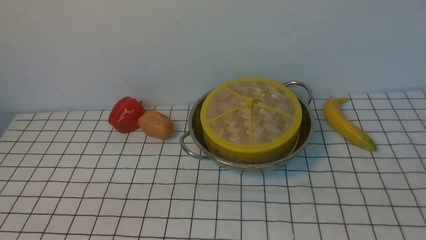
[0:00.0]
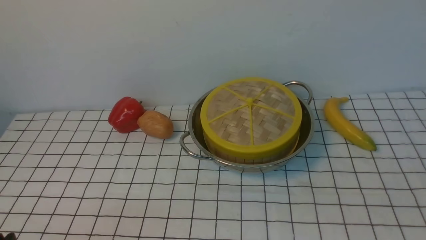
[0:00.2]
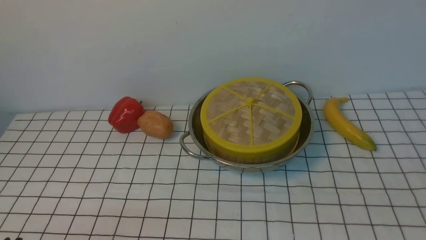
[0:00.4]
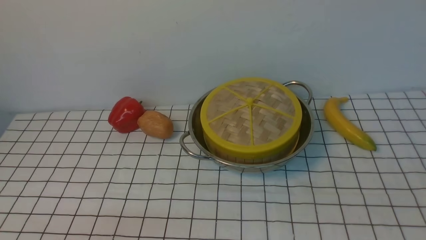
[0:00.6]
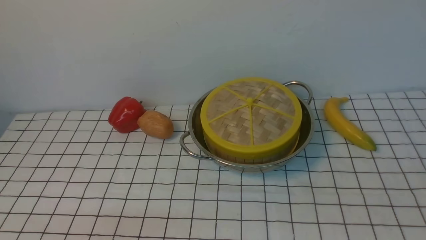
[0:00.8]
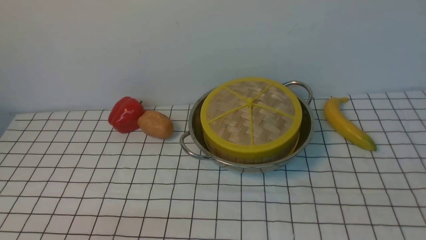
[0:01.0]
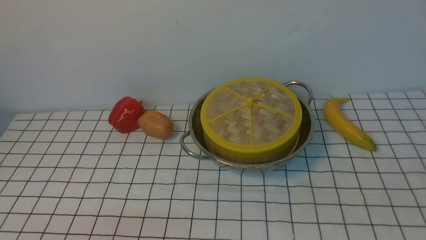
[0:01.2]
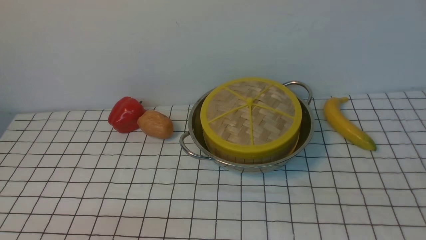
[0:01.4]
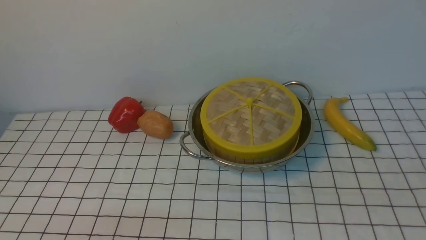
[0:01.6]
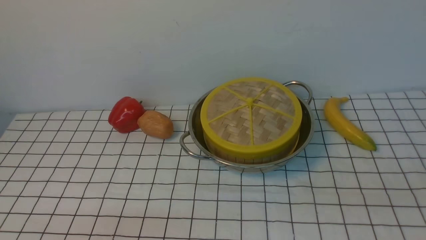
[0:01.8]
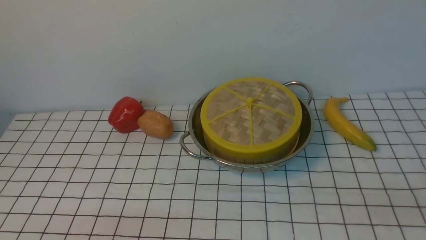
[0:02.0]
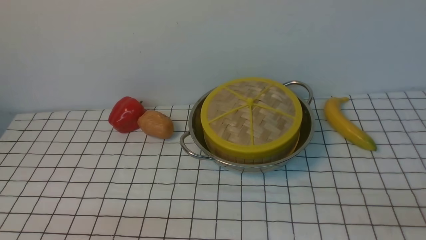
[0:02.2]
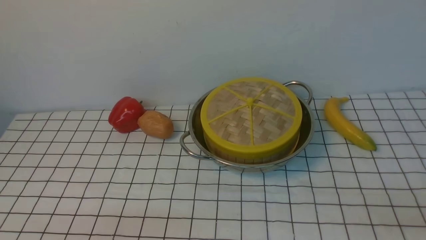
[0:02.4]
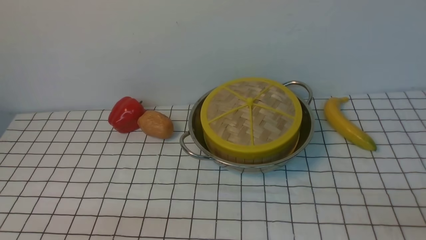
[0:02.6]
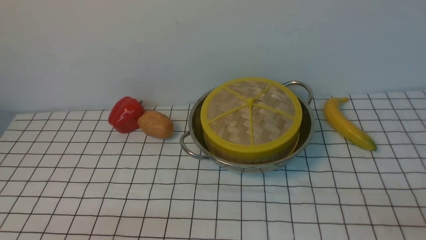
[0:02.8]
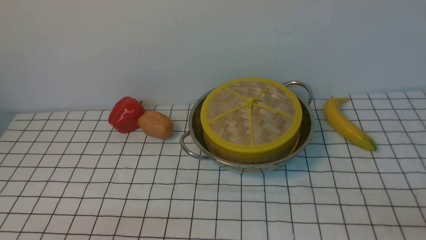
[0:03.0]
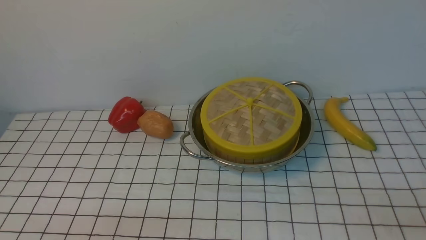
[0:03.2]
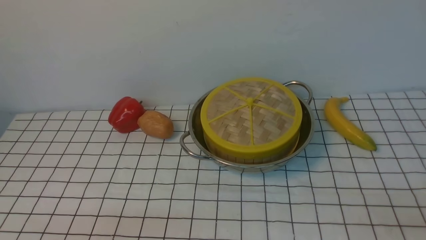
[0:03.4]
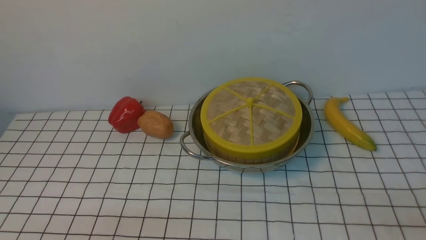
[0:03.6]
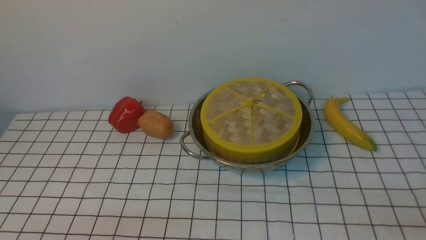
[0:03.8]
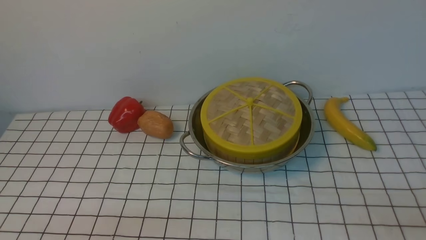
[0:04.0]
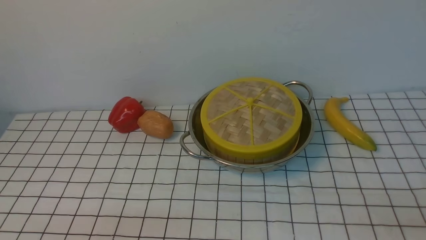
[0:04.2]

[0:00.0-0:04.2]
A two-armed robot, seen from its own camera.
Task of the whole recording: place the steamer in the pot on the white tablecloth, and put the lid on the steamer.
0:02.8 to 0:04.2: Both grippers stay put.

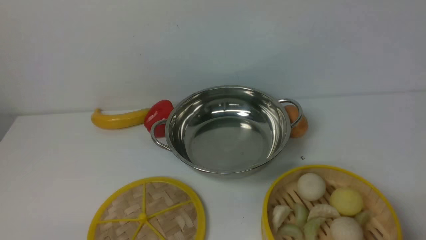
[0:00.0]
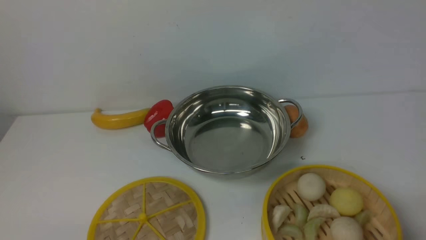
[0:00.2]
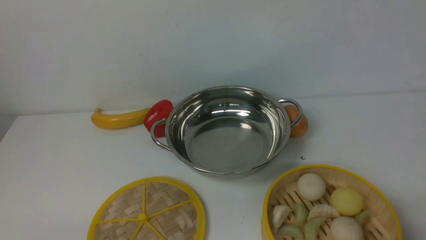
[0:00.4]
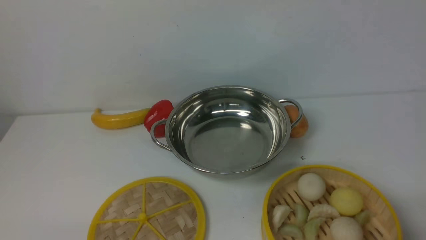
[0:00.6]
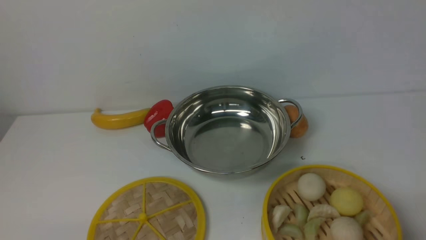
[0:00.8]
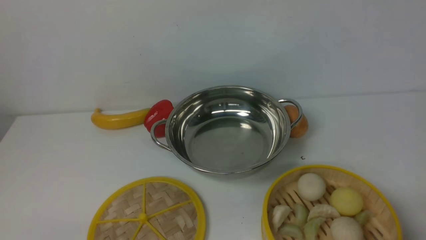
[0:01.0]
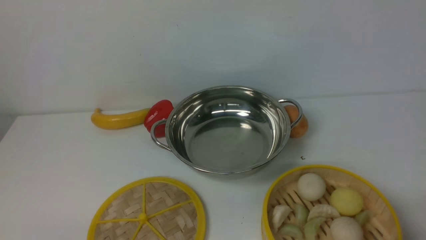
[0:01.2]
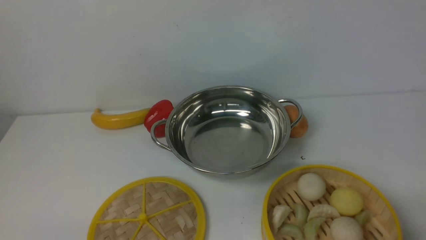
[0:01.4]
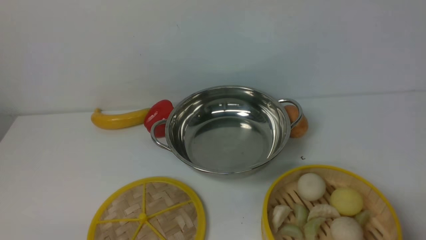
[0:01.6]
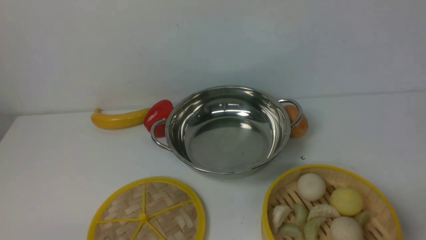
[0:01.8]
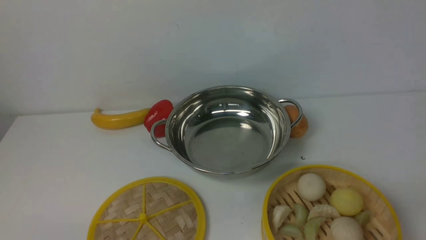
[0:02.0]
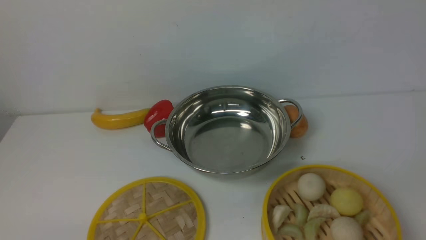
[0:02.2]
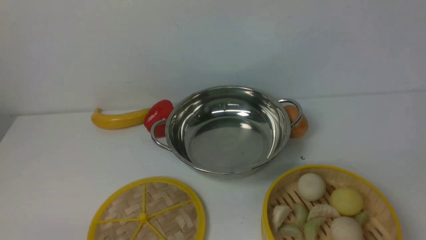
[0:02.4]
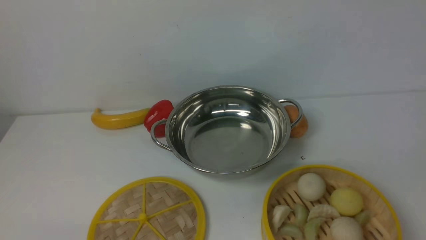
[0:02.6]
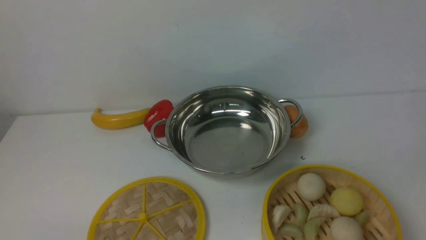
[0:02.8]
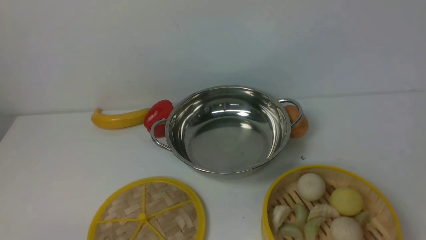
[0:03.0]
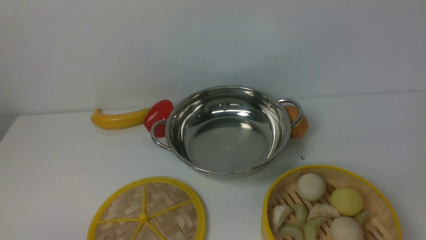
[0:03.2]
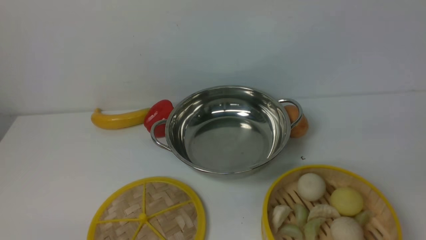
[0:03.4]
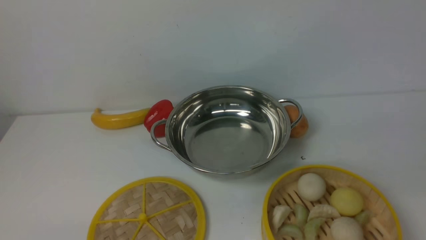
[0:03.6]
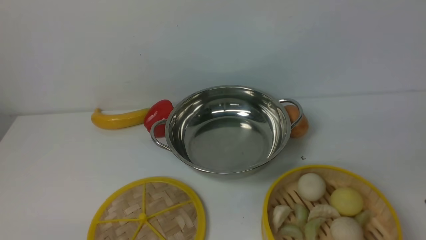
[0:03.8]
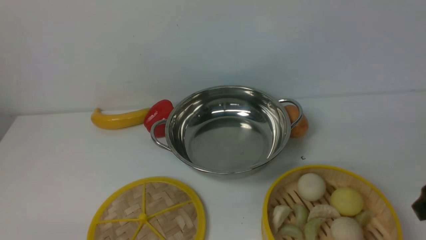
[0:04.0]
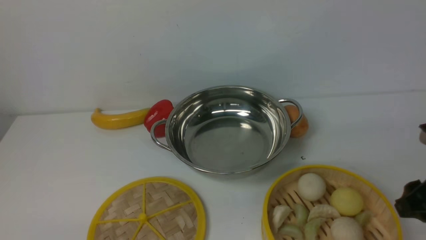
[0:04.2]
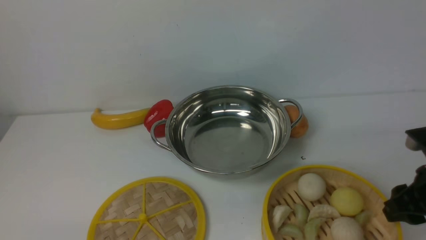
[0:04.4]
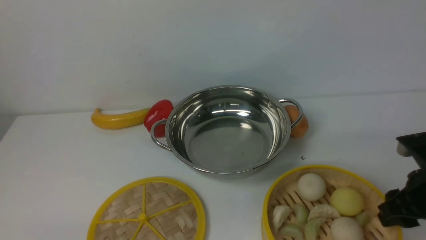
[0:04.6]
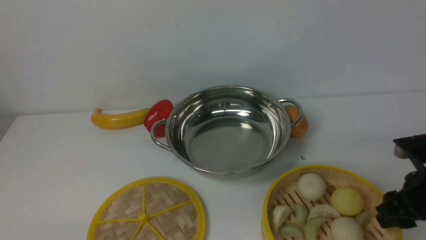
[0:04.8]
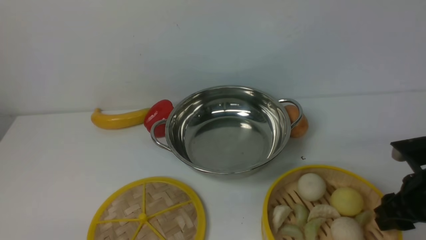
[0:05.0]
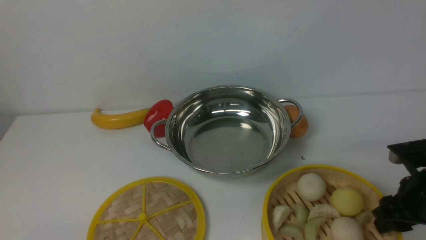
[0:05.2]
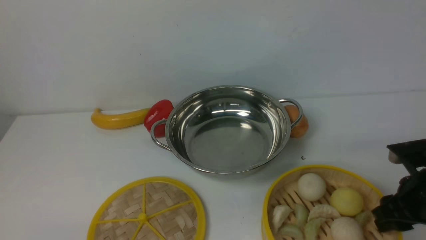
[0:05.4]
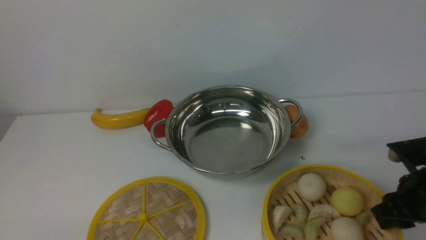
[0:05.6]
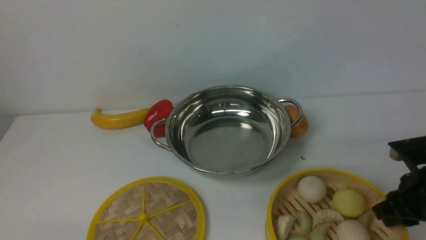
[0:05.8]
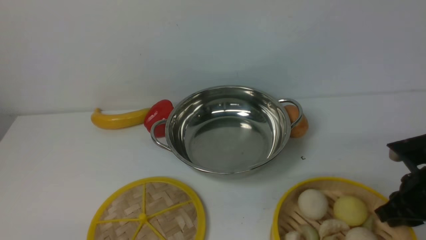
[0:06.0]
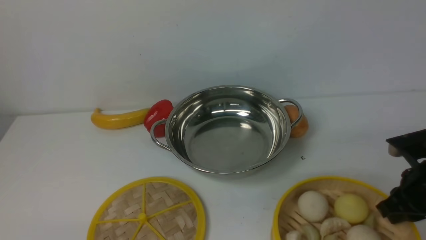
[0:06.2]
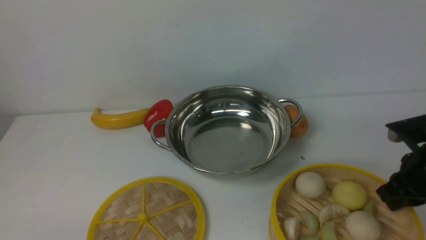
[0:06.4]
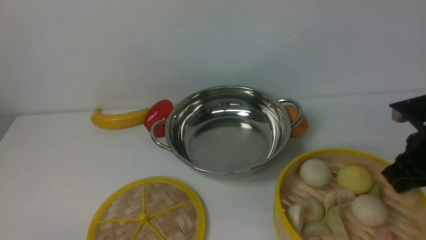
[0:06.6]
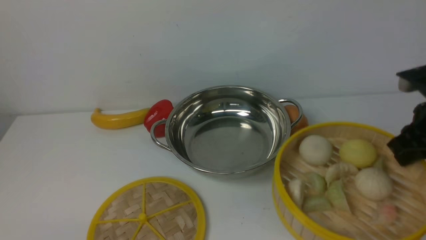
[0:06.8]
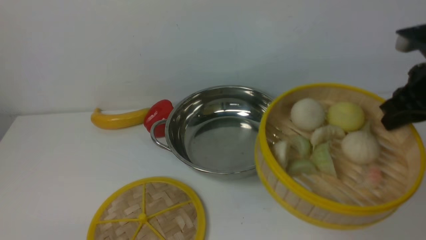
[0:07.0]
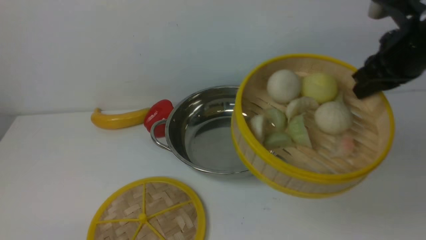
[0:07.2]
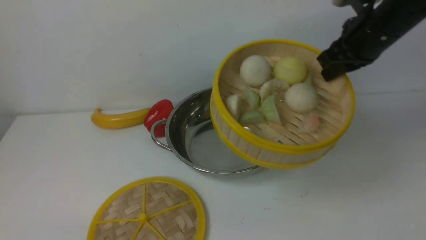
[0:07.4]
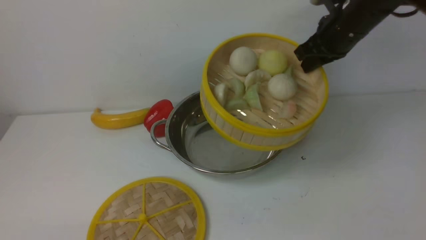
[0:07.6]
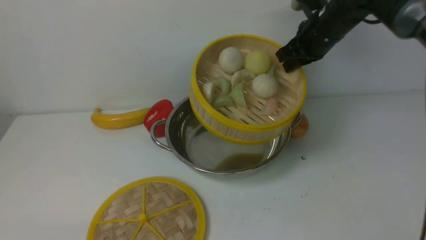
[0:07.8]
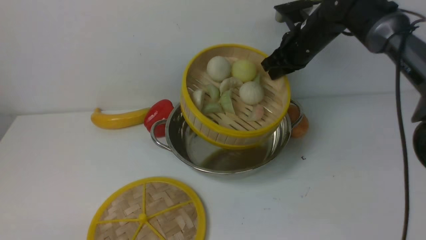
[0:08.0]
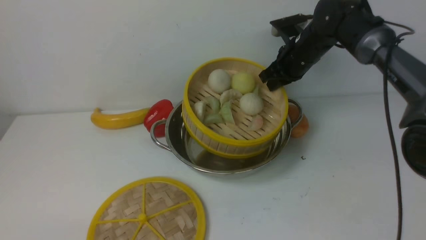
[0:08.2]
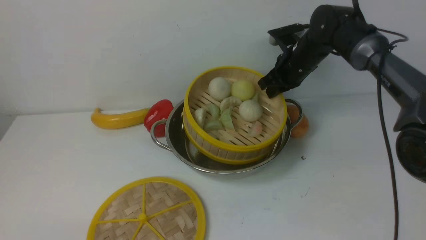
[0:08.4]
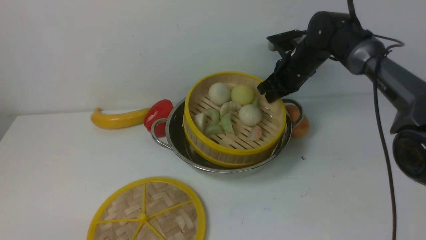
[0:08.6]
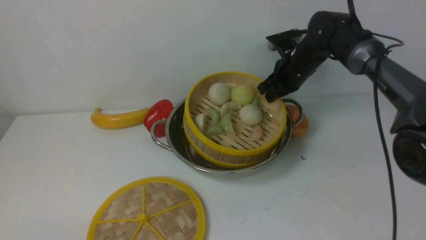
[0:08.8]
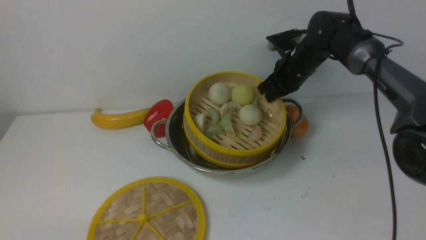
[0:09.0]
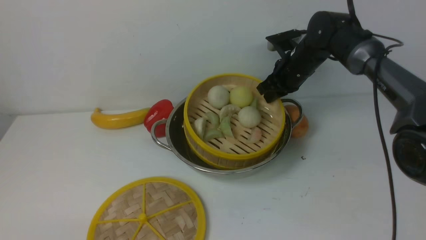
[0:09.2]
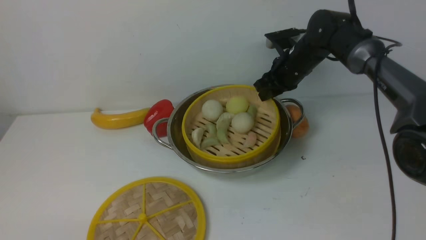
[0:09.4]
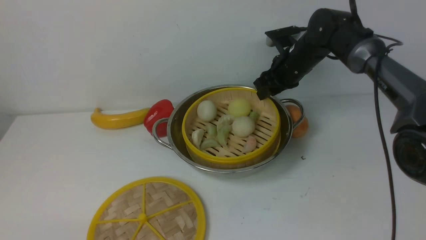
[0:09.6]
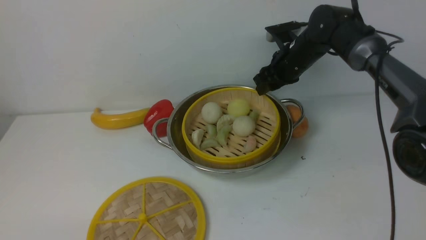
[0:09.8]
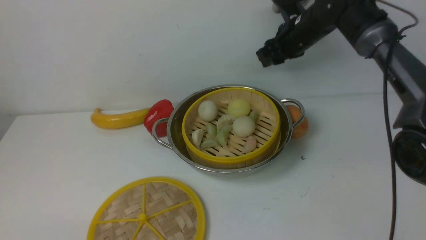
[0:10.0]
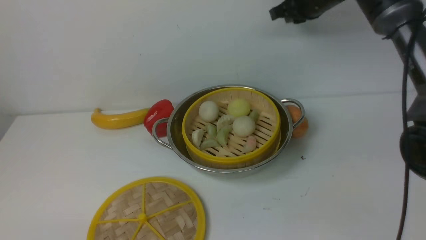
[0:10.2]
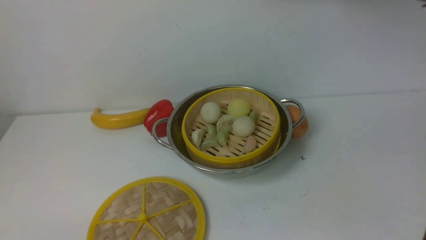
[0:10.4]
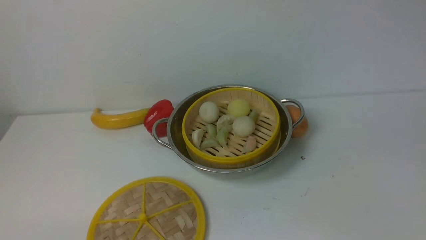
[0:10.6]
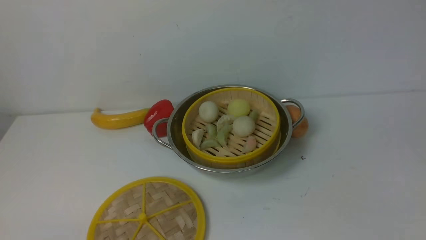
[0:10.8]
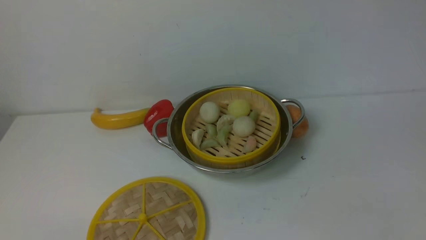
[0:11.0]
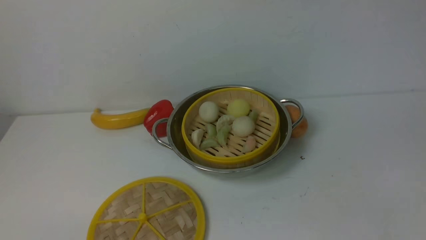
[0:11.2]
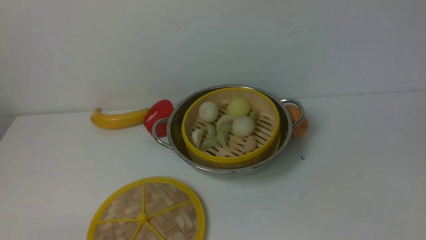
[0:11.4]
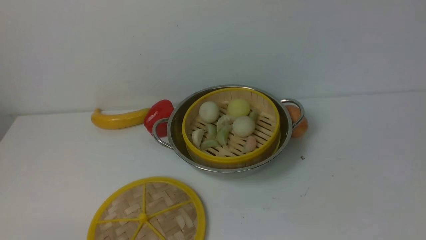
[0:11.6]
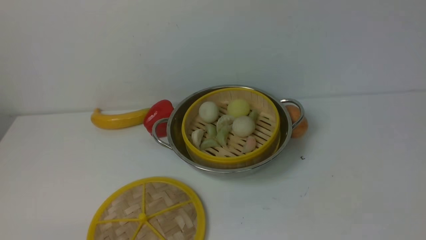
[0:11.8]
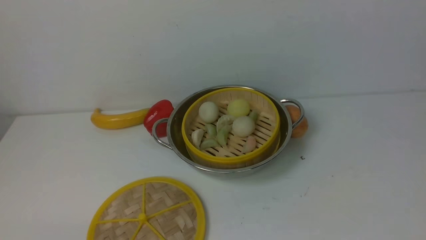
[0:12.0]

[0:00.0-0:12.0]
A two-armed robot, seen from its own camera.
Task of the whole recording: place the steamer in the pot on the white table, and put the lid on the steamer.
Step, 0:00.0 to 0:07.0: use the right arm to lift the steamer closest to it.
Step, 0:07.2 to 0:10.2: use the right arm to put the steamer into the iron steamer pot in the middle.
0:03.0 to 0:04.4: The right gripper heads forward and downward, covering about 25 cm, and opens its fingers.
0:04.4 to 0:06.0: The right gripper shifts by some 5 cm, and closes its fingers.
0:06.0 to 0:07.6: The right gripper goes roughly 25 cm forward, upward and to the left.
0:07.6 to 0:09.0: The right gripper shifts roughly 15 cm downward, forward and to the left.
0:09.0 to 0:10.4: The right gripper is displaced upward by roughly 20 cm, and opens, then closes once more.
